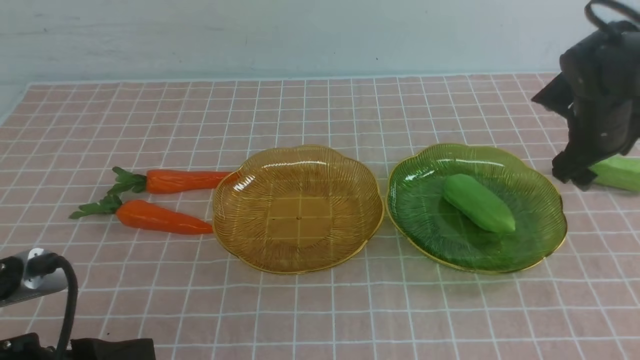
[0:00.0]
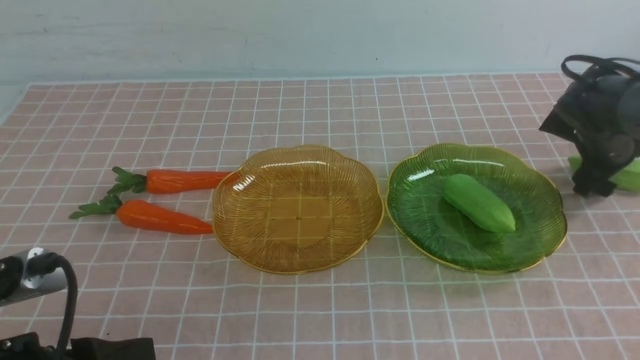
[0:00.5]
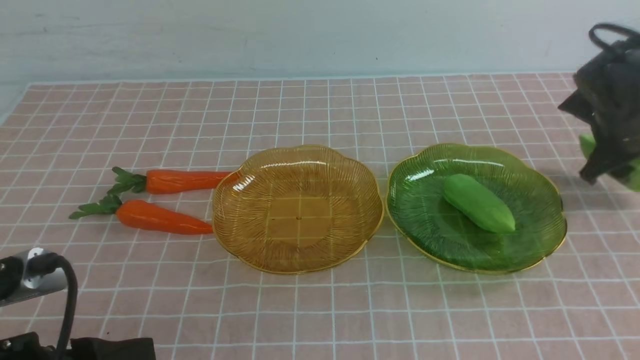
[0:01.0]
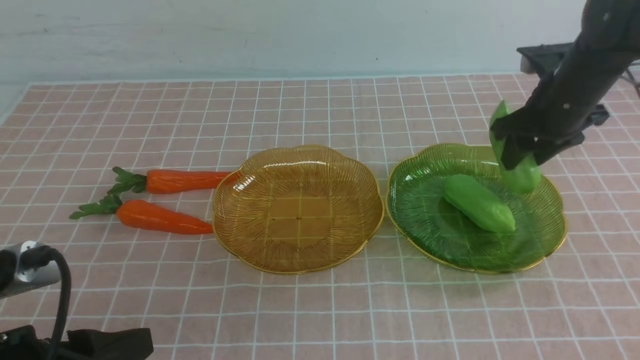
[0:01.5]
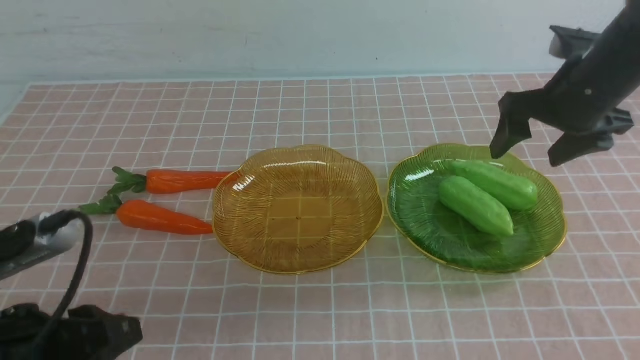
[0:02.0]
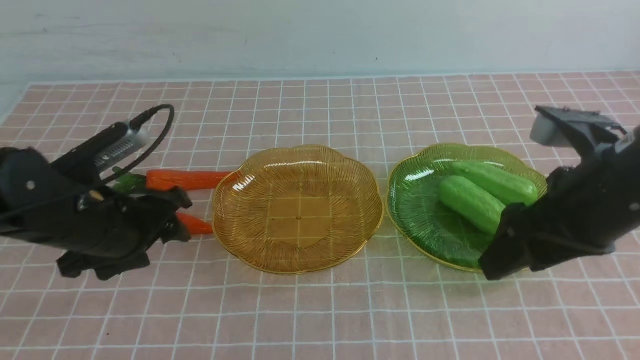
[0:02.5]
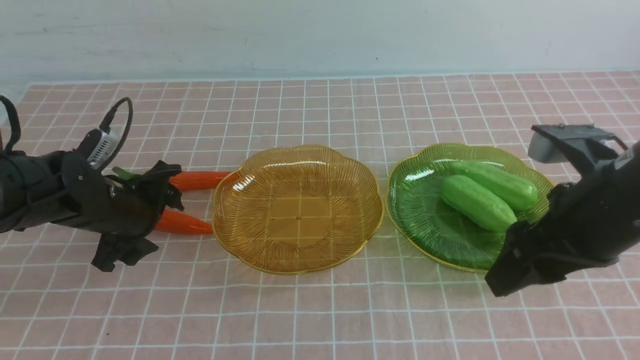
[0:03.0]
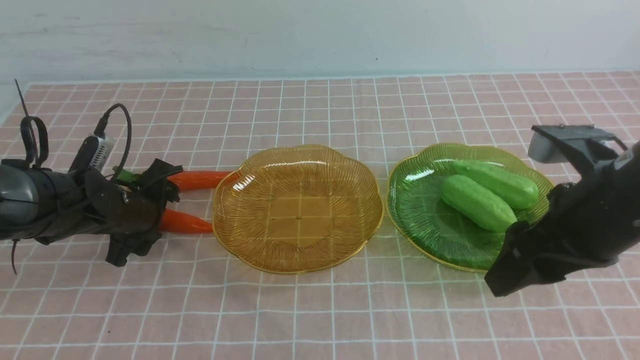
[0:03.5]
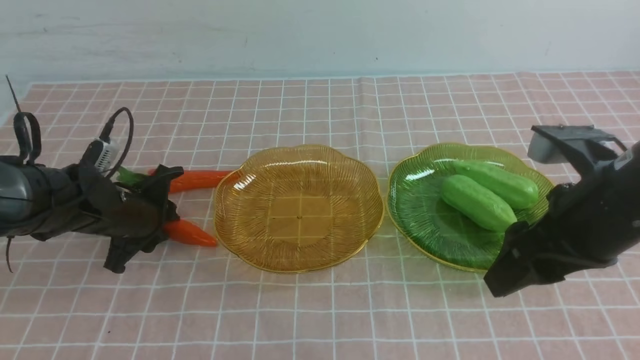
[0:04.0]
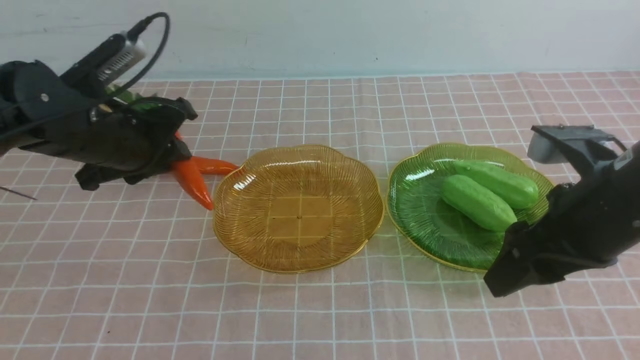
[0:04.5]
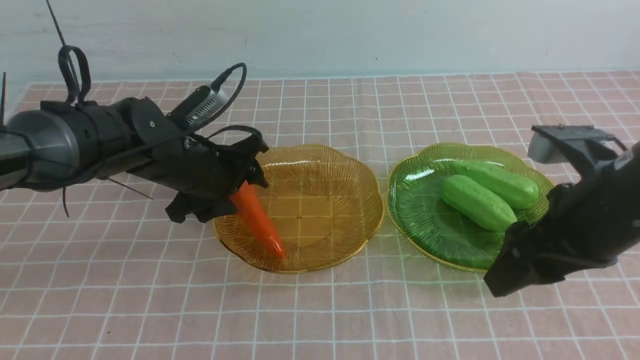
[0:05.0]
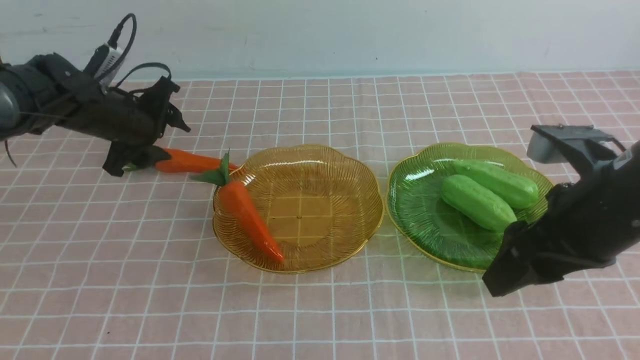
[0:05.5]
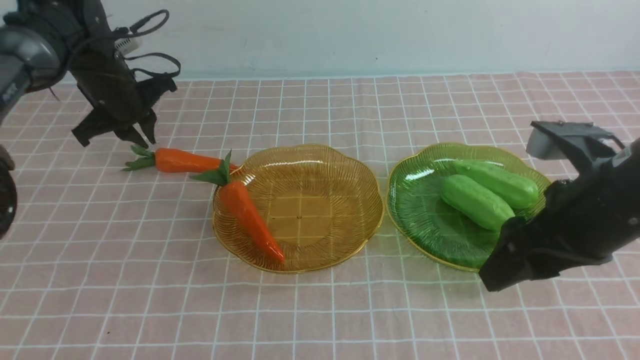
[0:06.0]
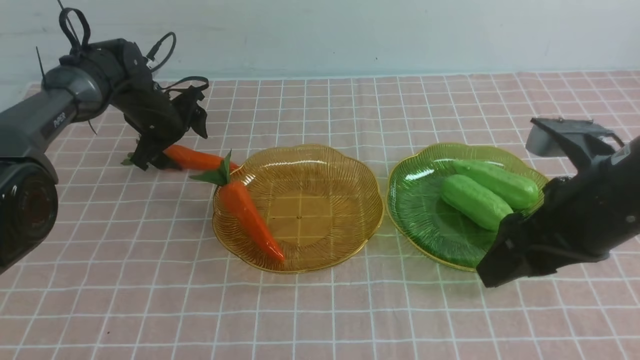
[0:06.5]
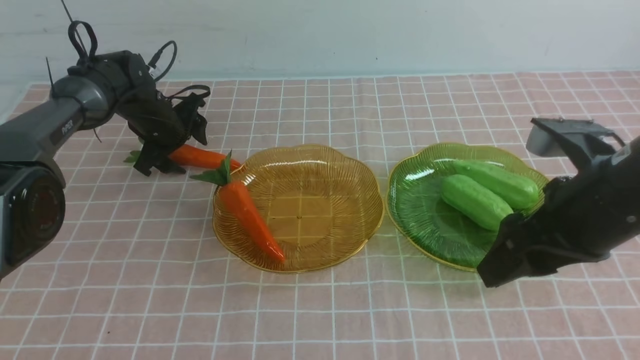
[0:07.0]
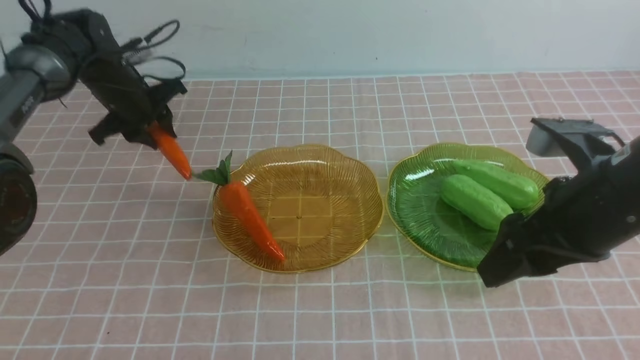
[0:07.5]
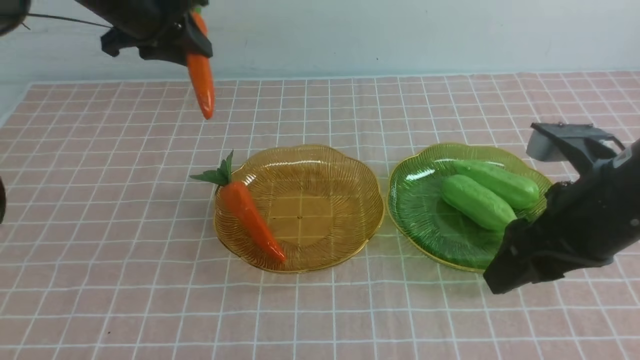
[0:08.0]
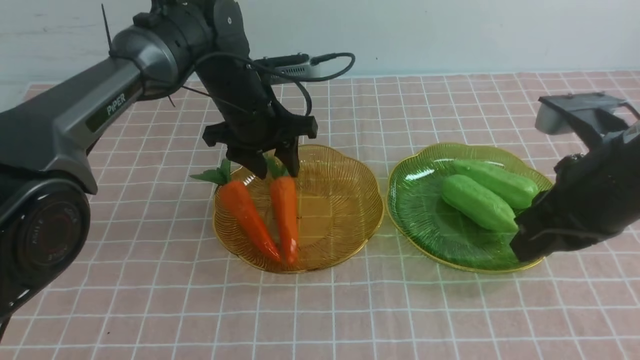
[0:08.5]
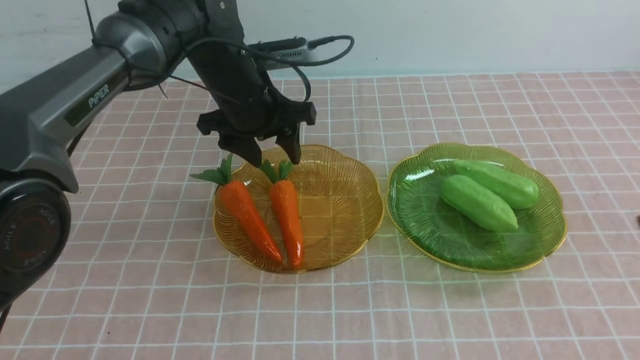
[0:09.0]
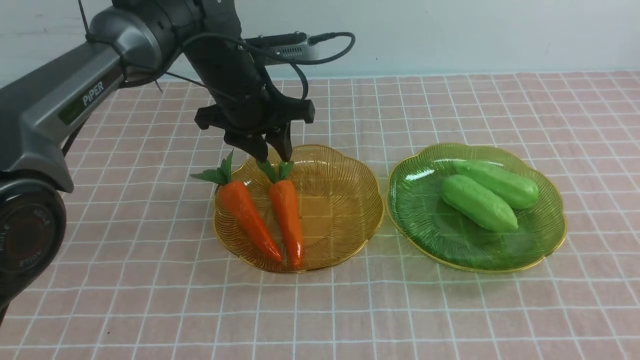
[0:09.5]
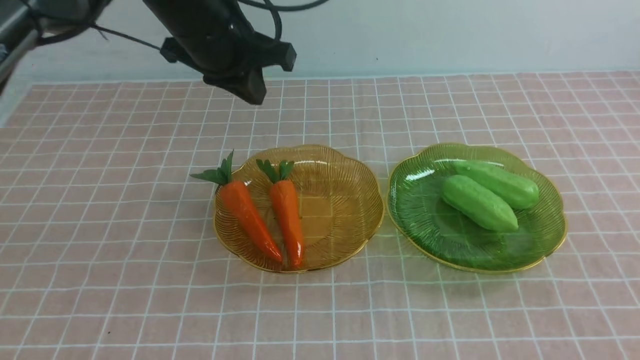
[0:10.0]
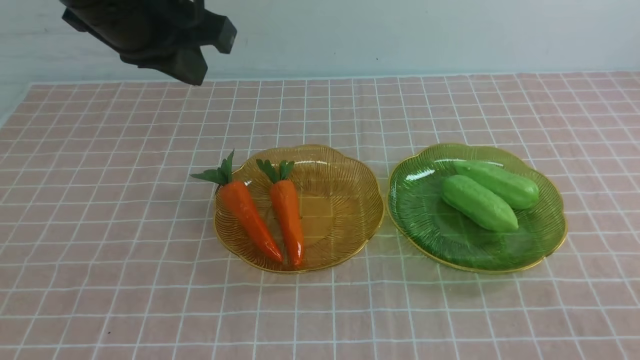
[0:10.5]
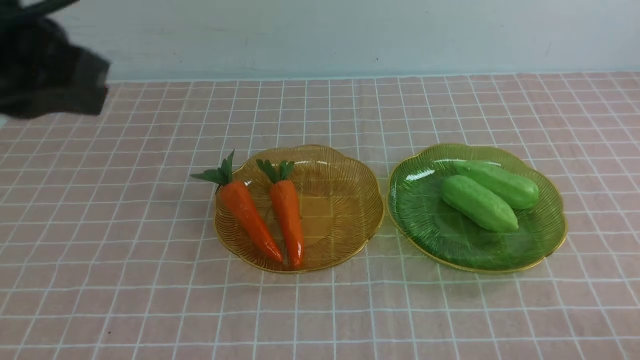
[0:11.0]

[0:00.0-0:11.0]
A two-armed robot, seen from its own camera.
Step, 0:00.0 to 0:01.5: use the right arm to grab a chayote and put it into the right plate.
Step, 0:02.0 to 0:08.5: use the left arm to grab a carrot and put it into the left plate.
0:00.0 to 0:02.0: The left gripper is displaced forward by approximately 25 cm, and opens. Meanwhile the right gripper goes about 30 cm backward, to the left and upward.
0:02.0 to 0:03.5: The left gripper closes.
0:03.5 to 0:05.5: The left gripper moves forward, some 15 cm, and opens and closes again.
0:05.5 to 0:07.5: The left gripper is displaced upward by roughly 5 cm, and opens and closes again.
0:07.5 to 0:09.0: The right gripper heads backward and to the right, covering about 15 cm, and closes its fingers, while the left gripper travels to the right and backward by roughly 20 cm.
0:09.0 to 0:11.0: The right gripper shifts approximately 15 cm downward. Meanwhile the left gripper moves backward and upward, approximately 35 cm, and closes its fingers.

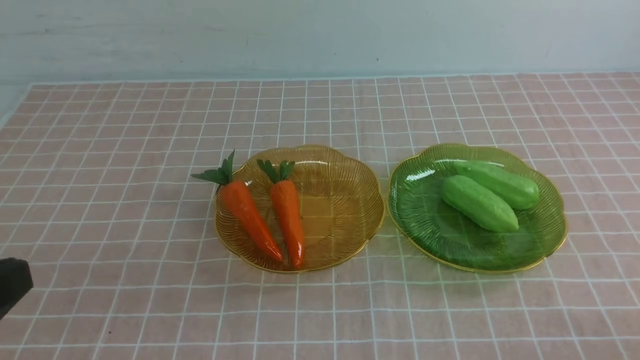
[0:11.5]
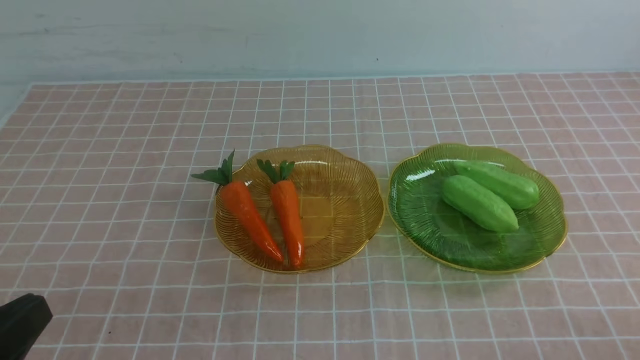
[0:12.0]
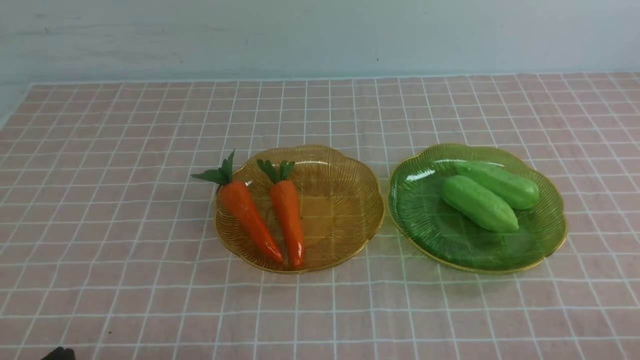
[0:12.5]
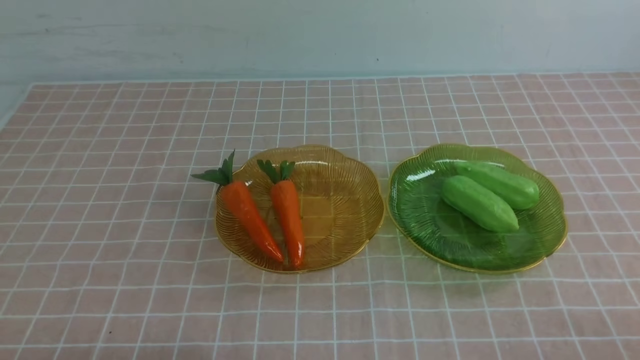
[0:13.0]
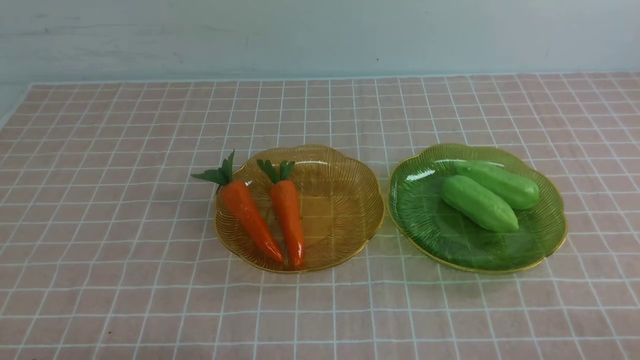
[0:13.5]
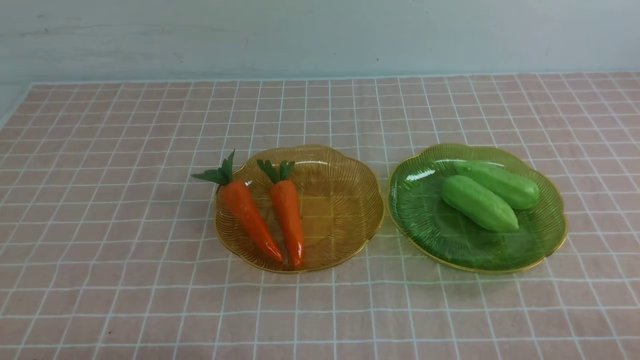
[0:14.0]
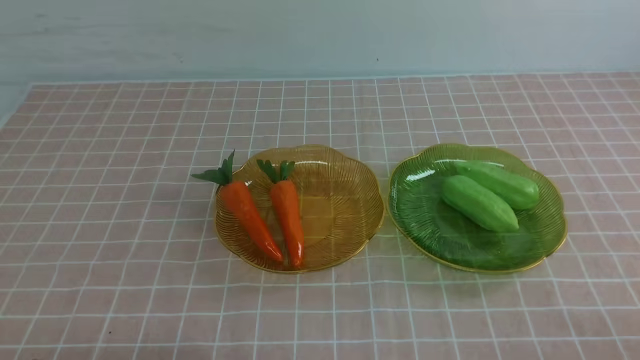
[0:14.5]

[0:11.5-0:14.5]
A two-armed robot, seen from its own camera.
0:13.0 to 0:14.5: Both grippers stay put.
